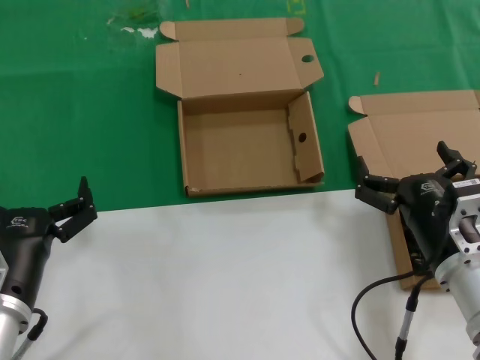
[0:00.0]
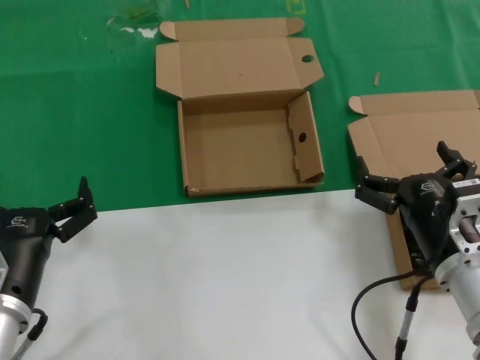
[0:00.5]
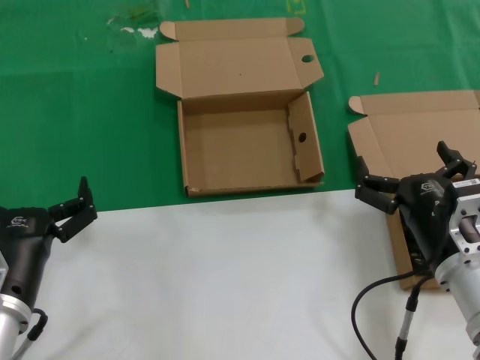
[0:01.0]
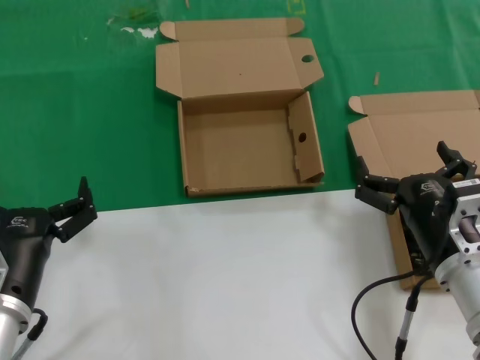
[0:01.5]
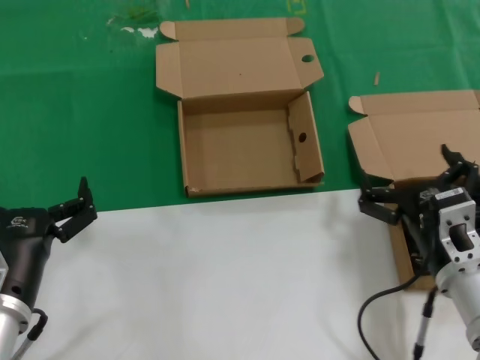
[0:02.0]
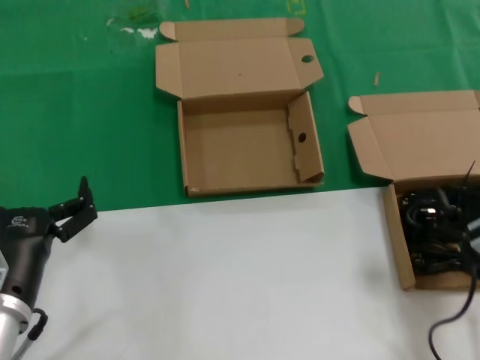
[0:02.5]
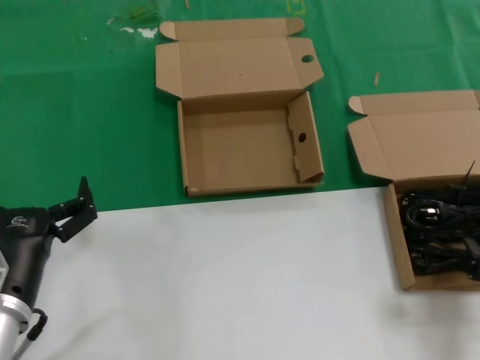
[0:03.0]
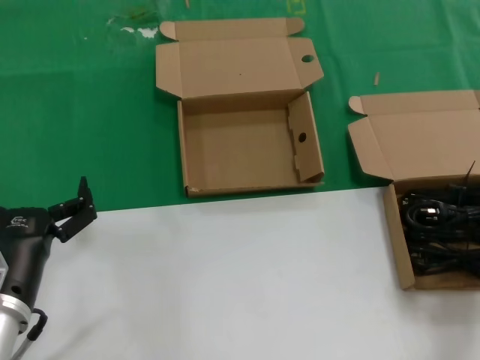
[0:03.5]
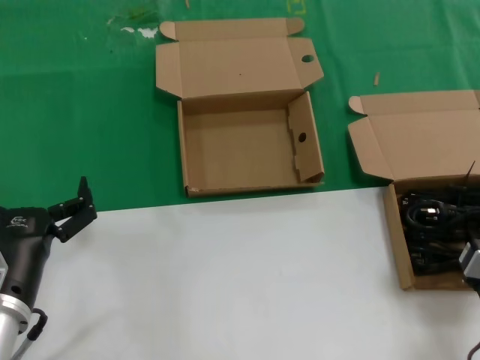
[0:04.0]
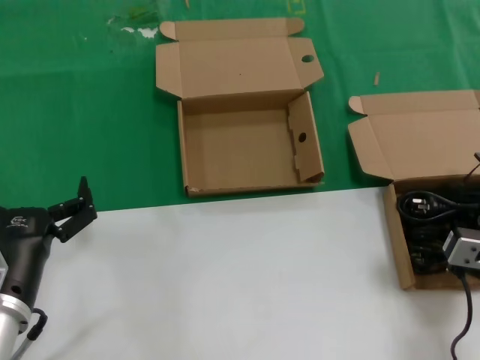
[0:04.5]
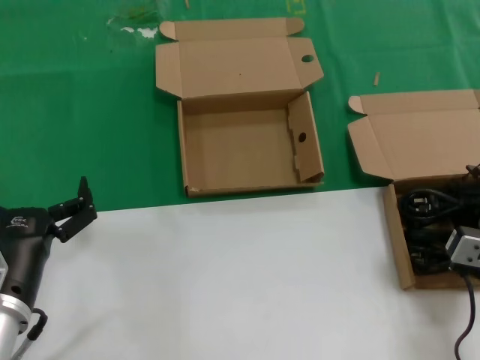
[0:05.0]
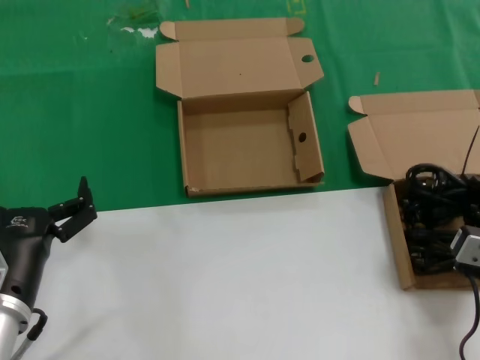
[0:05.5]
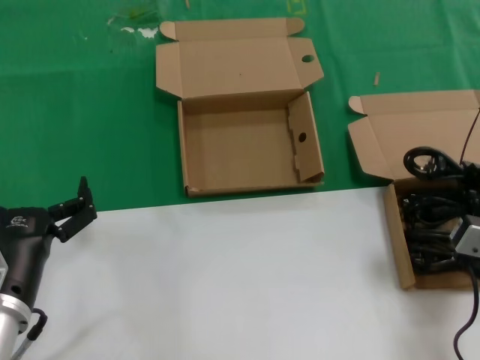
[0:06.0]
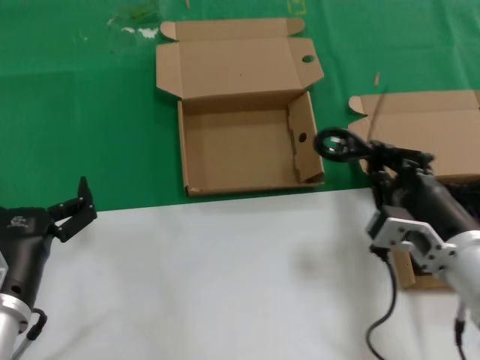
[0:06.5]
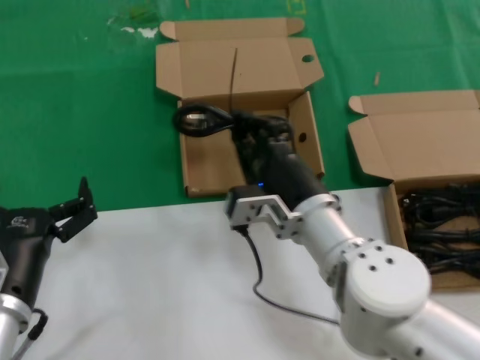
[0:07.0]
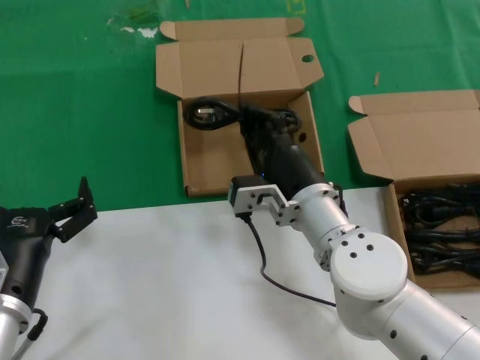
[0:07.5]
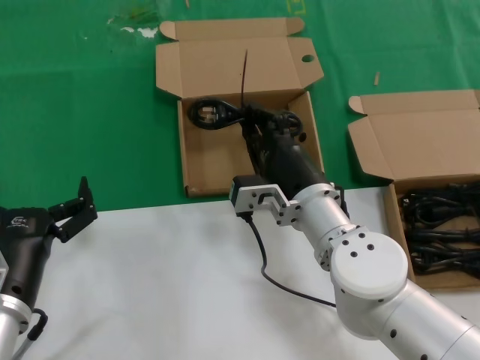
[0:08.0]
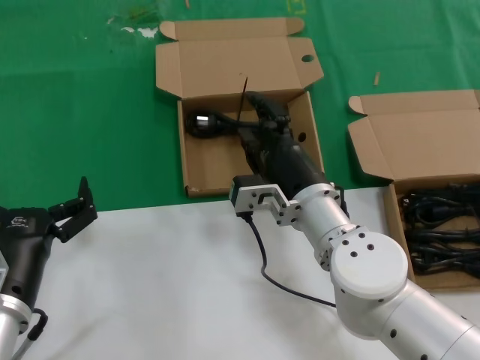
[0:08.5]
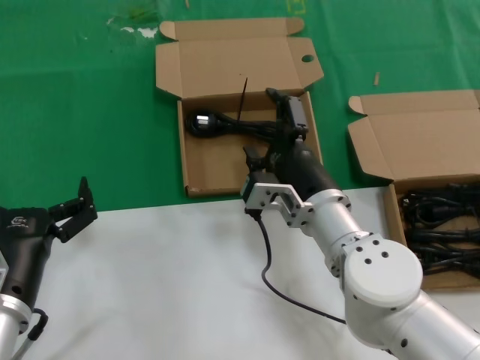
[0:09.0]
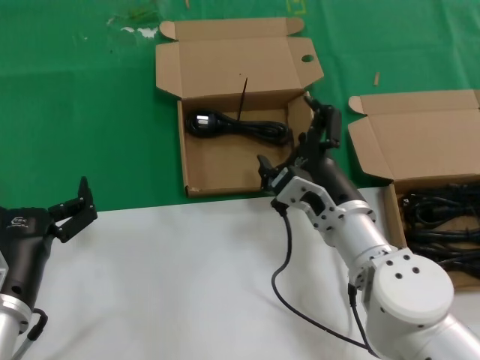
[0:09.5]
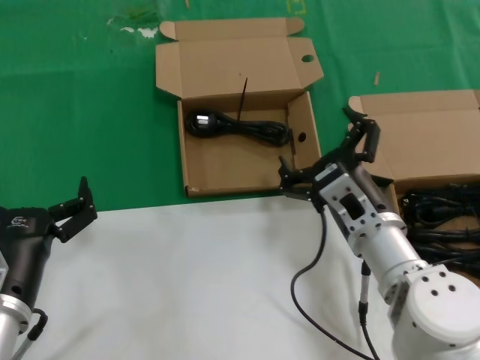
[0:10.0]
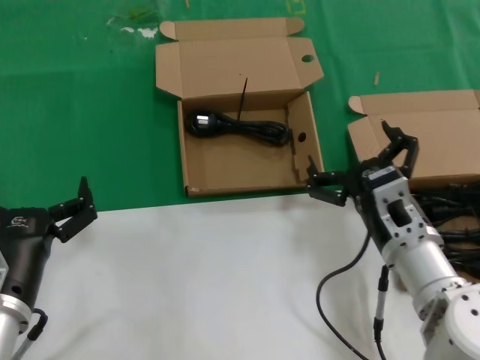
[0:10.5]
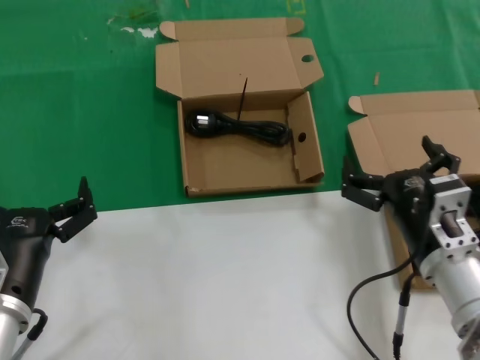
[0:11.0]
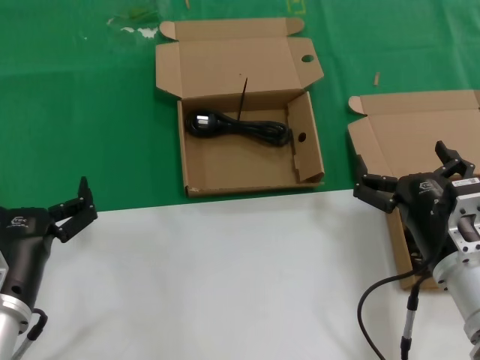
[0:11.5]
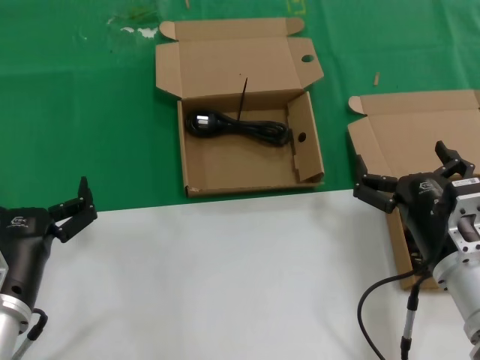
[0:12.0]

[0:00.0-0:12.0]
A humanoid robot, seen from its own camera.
Task of the whole recording: take the parts from the box containing them and put them into an empty box.
Step, 0:00.0 to 0:05.5: Grasp the data cable.
Step, 0:06.0 to 0:09.5: Place the data cable in the another box.
0:00.0 to 0:02.0: There are only small adjustments of the hands.
0:02.0 to 0:04.0: The right hand shifts some 10 cm to the right.
0:04.0 to 0:06.0: The hands stay close to where they were, moving slightly.
0:06.0 to 0:08.0: The right hand travels to the left and forward by about 25 cm.
0:08.0 to 0:10.0: The right hand heads to the right, covering approximately 5 cm.
0:10.0 to 0:12.0: The right hand moves to the right and backward, approximately 10 cm.

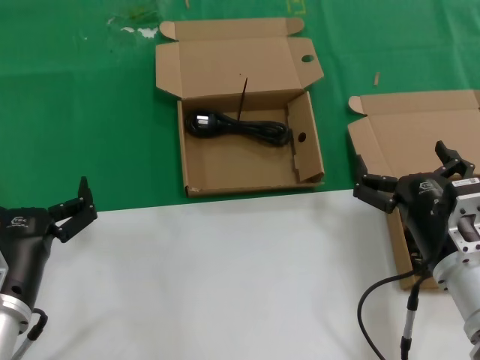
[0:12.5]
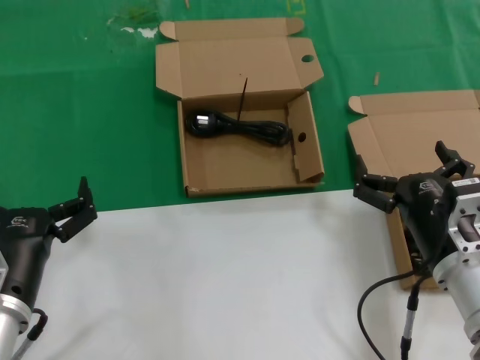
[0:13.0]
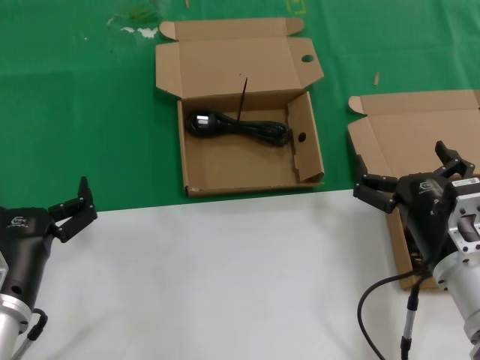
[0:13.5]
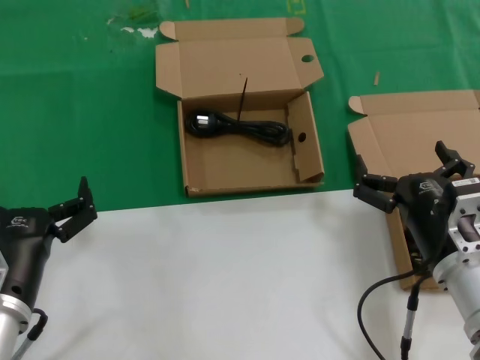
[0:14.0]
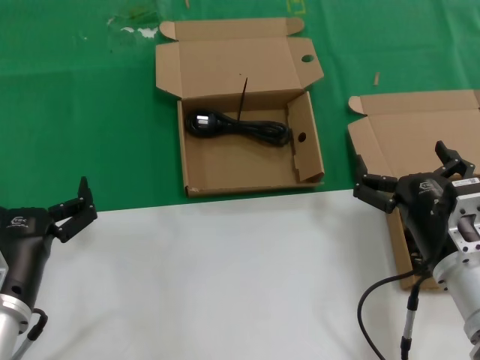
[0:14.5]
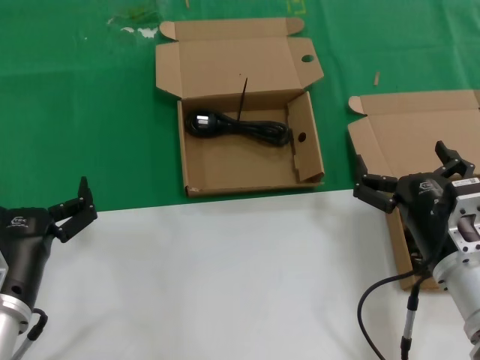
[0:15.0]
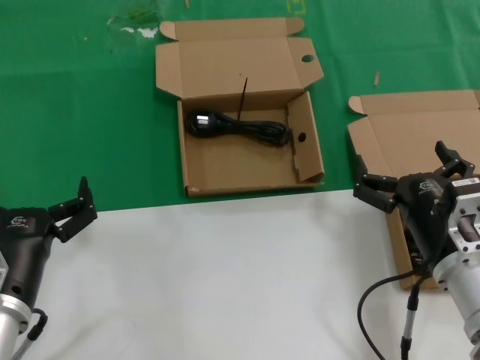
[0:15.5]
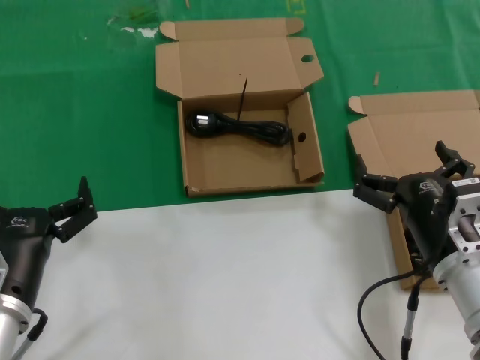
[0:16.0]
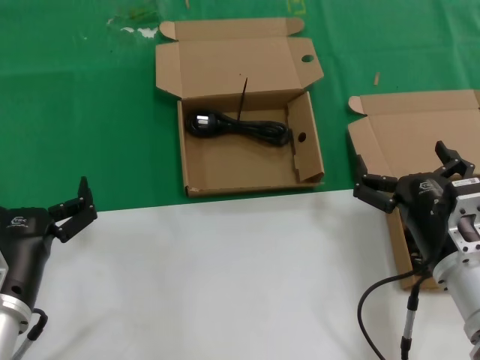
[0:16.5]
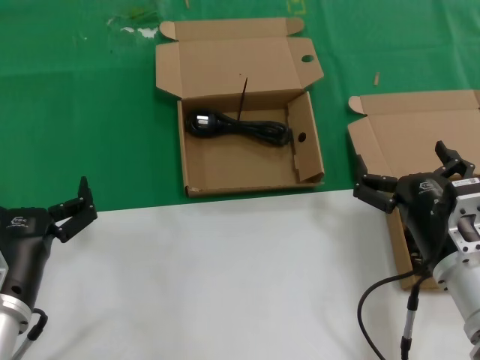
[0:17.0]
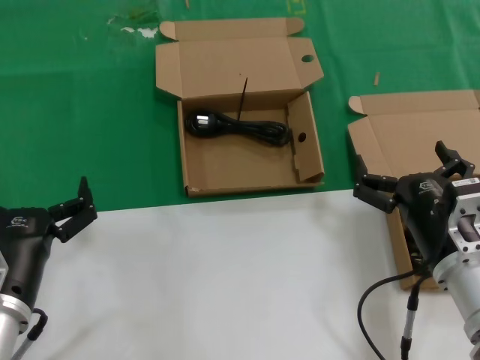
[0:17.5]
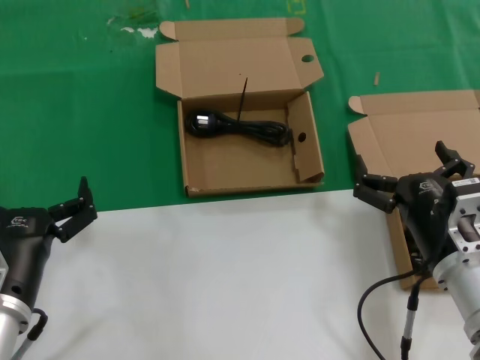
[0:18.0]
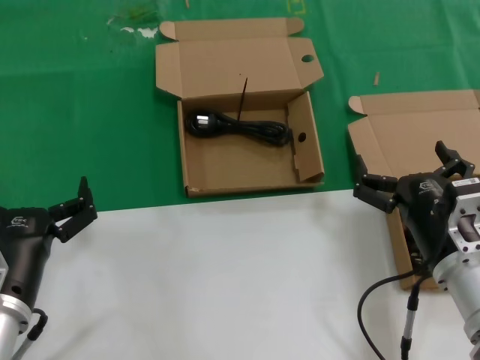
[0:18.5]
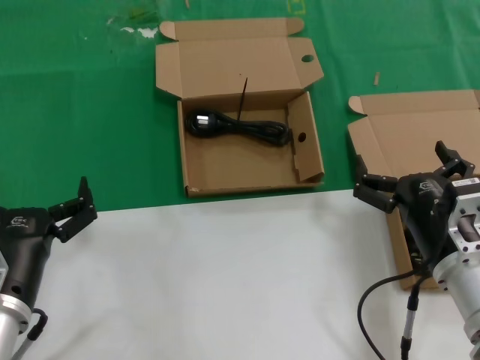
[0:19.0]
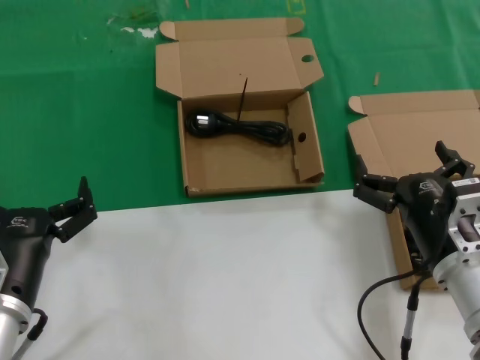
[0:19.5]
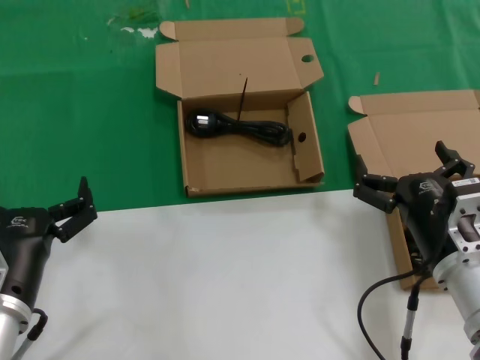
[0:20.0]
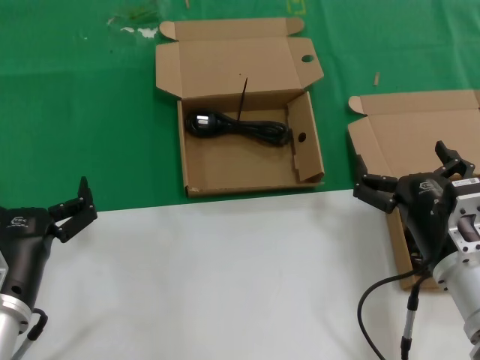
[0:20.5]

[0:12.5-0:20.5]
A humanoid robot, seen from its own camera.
Task of the whole recording: take the parts from the box containing them and put them into an empty box.
0:12.5 to 0:20.5: Neither hand changes place.

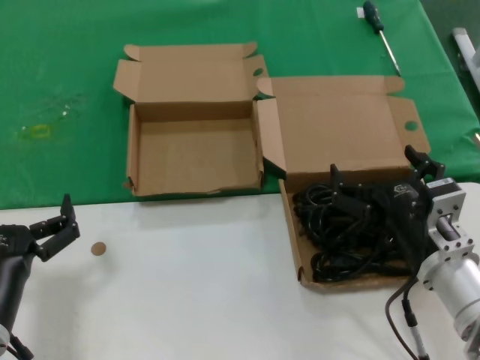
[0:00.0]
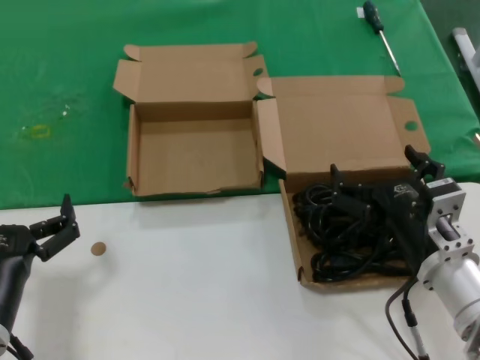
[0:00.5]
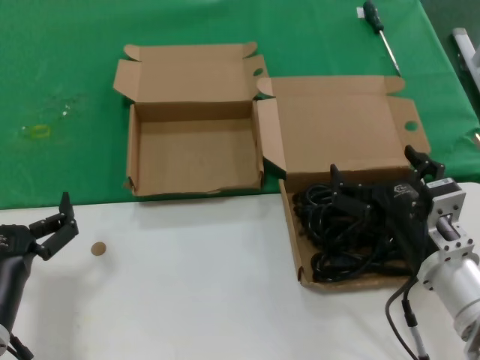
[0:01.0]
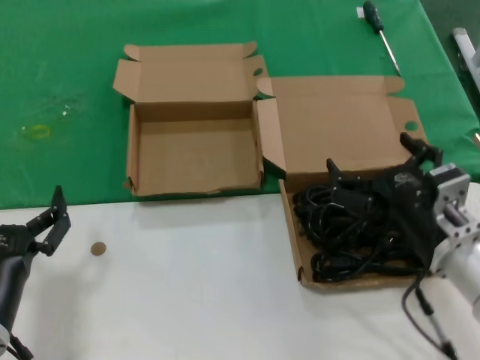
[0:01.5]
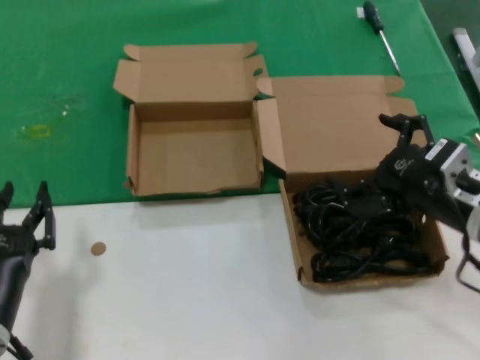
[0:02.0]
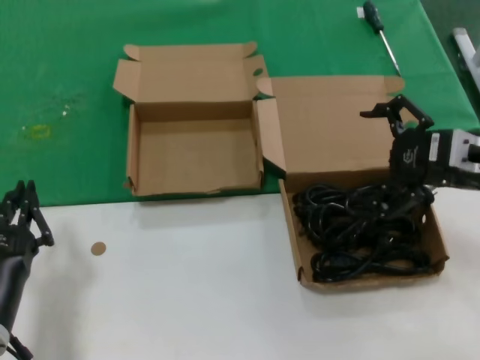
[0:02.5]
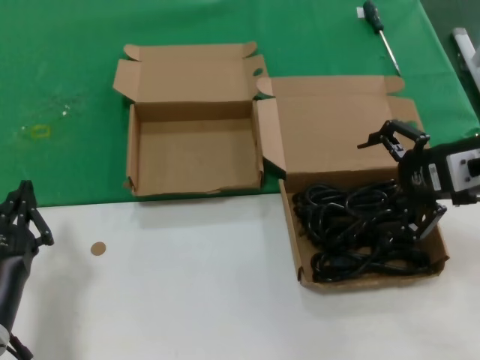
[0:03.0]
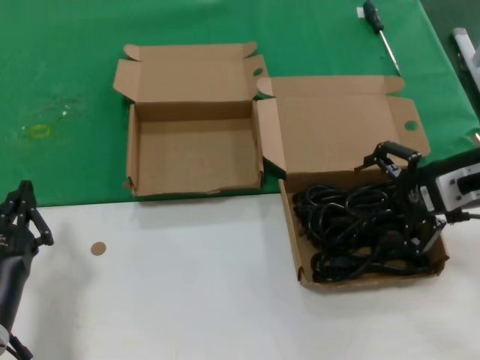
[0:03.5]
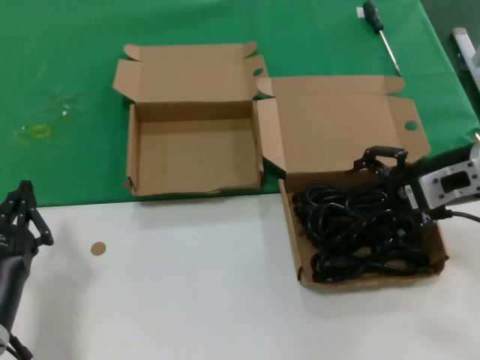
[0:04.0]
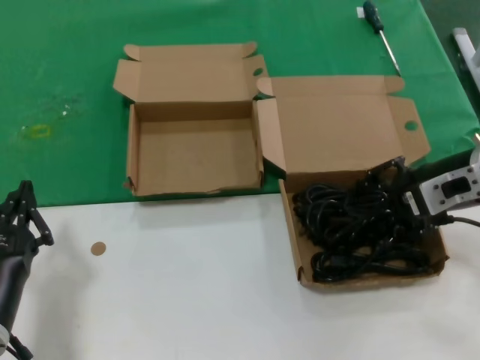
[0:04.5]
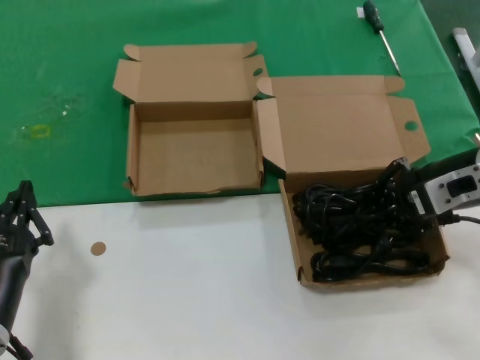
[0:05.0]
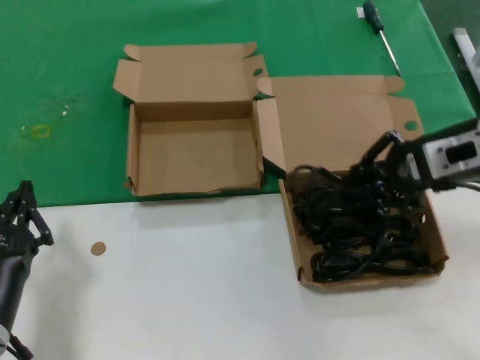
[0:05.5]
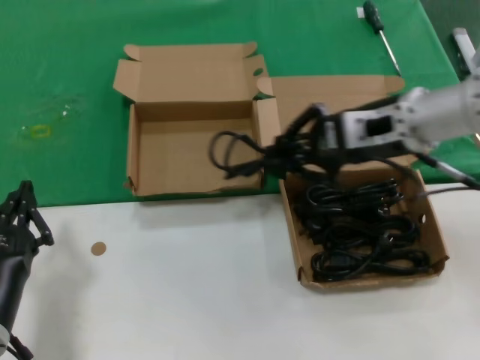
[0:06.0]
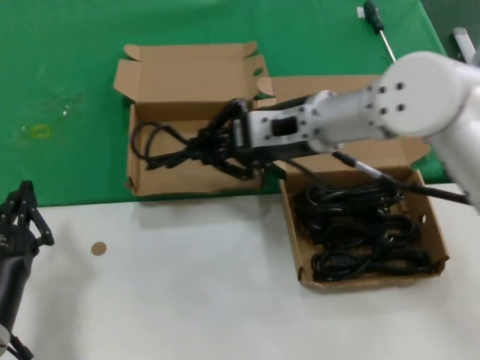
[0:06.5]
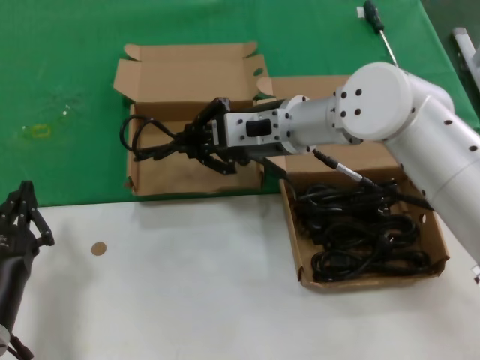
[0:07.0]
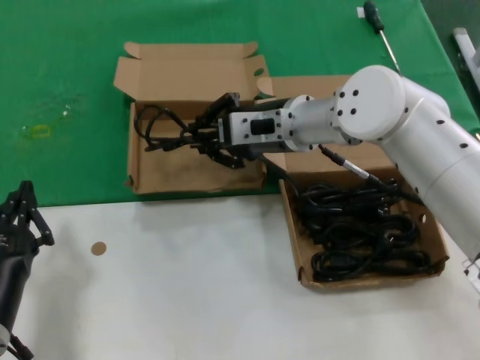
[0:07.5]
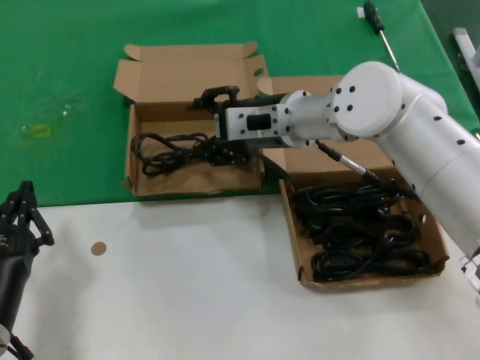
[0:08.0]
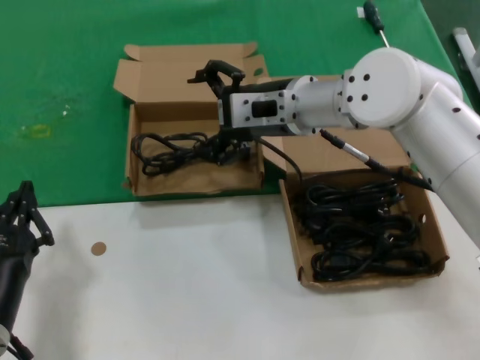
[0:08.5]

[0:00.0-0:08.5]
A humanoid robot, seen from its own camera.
Task of the whole recording: take the parts from the box containing them and put them into an empty box.
Step, 0:00.0 to 0:04.5: Grasp the data cable.
Step, 0:05.0 to 0:08.0: Place the data cable in the another box.
0:00.0 to 0:02.0: The right hand is displaced upward and to the right by about 10 cm.
0:02.0 to 0:04.0: The right hand heads forward and upward, covering approximately 10 cm.
0:04.0 to 0:06.5: The right hand moves to the left, about 20 cm.
